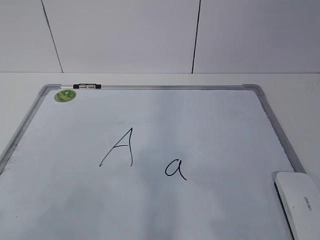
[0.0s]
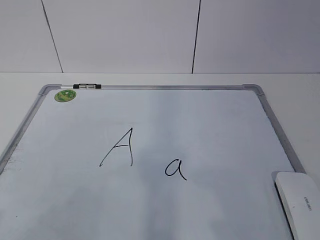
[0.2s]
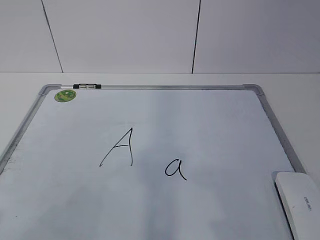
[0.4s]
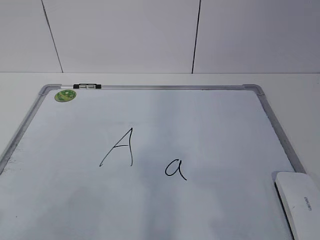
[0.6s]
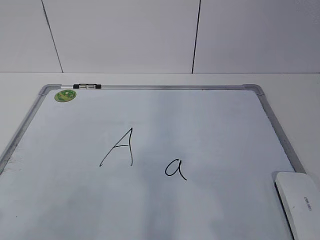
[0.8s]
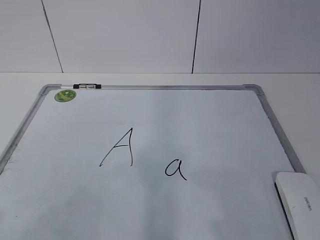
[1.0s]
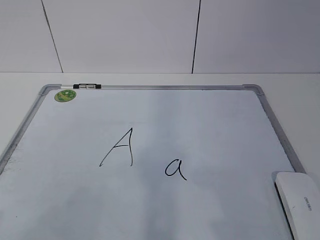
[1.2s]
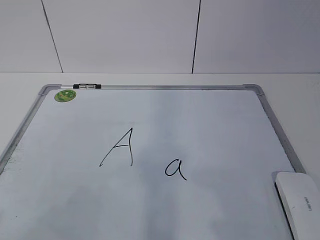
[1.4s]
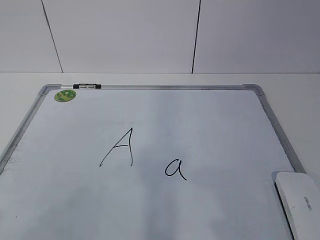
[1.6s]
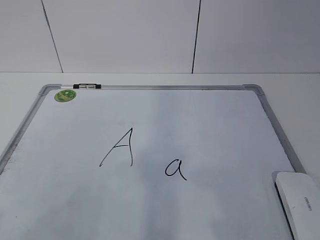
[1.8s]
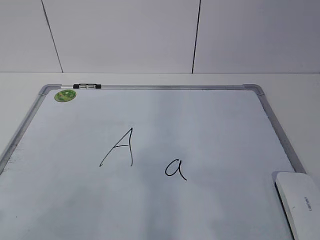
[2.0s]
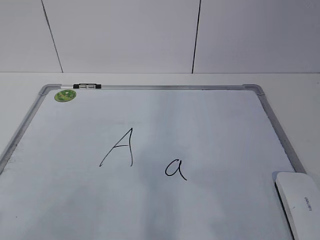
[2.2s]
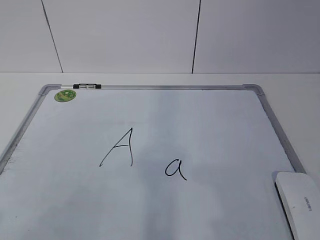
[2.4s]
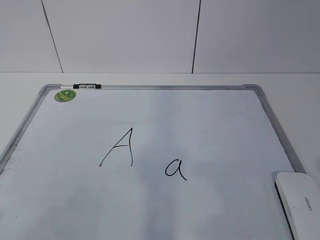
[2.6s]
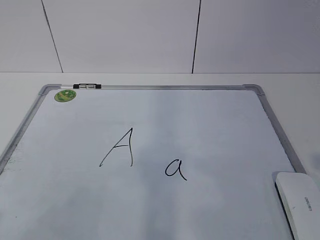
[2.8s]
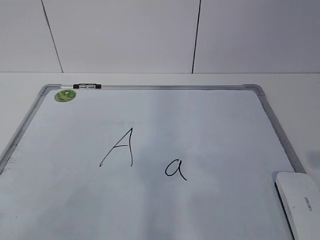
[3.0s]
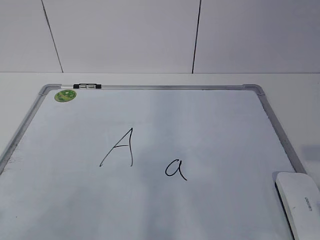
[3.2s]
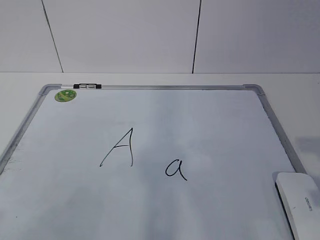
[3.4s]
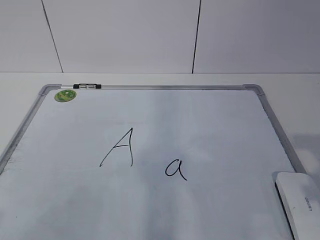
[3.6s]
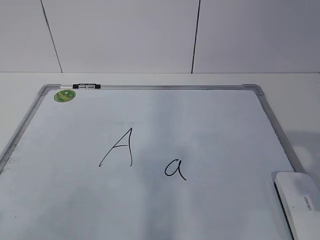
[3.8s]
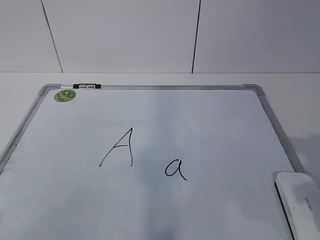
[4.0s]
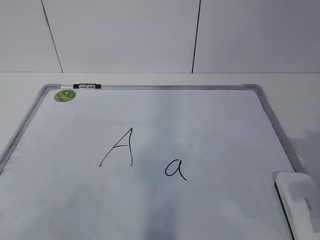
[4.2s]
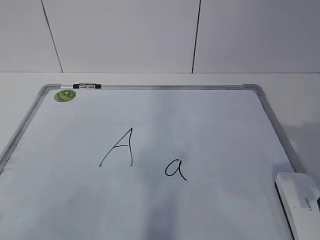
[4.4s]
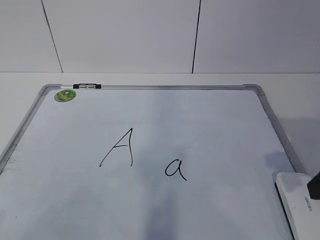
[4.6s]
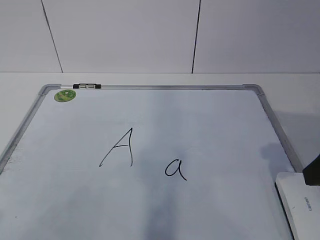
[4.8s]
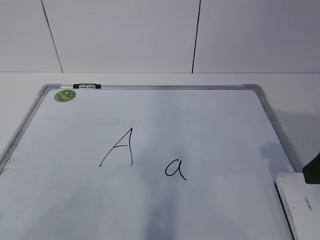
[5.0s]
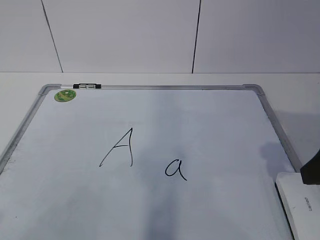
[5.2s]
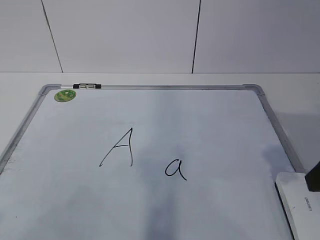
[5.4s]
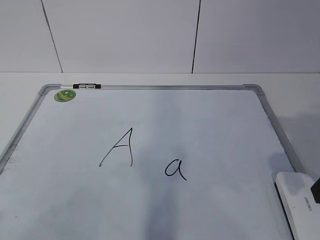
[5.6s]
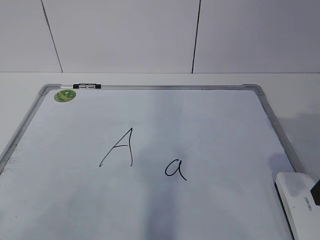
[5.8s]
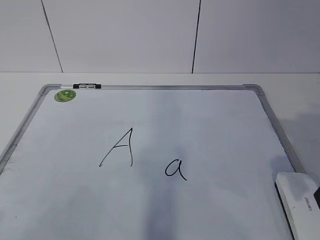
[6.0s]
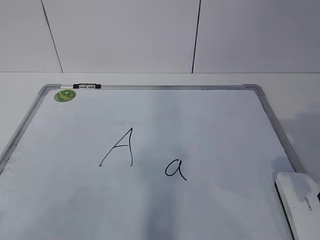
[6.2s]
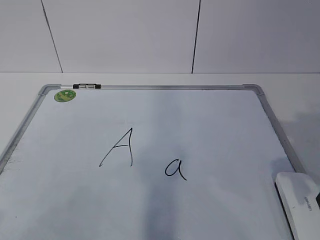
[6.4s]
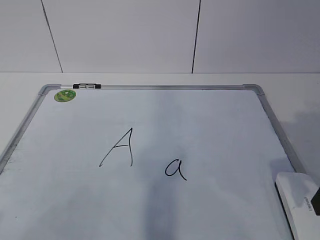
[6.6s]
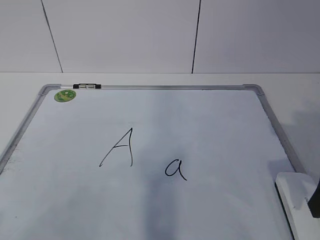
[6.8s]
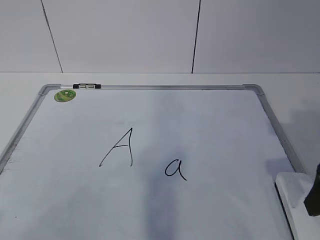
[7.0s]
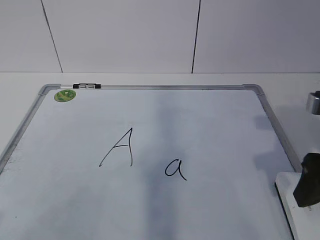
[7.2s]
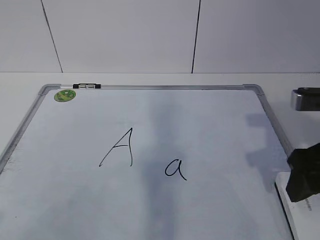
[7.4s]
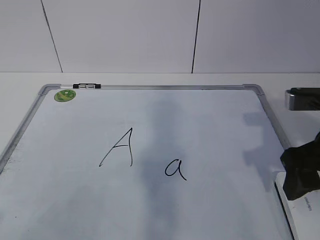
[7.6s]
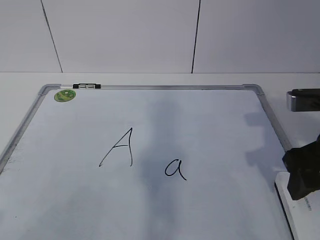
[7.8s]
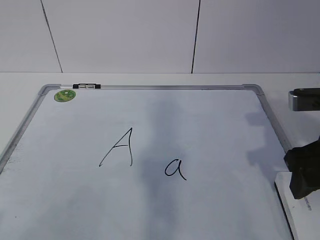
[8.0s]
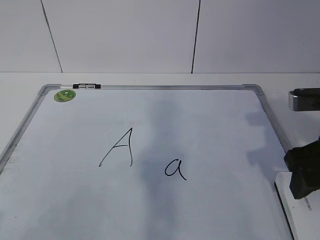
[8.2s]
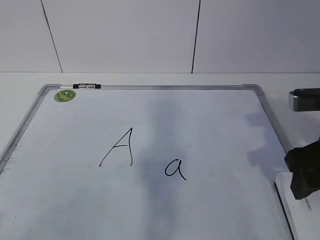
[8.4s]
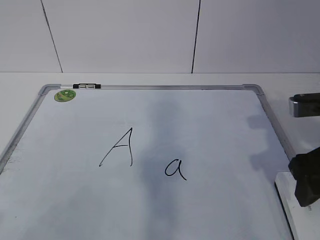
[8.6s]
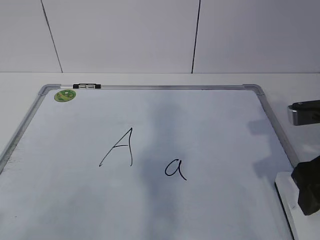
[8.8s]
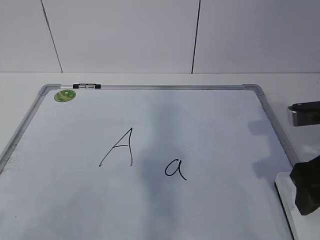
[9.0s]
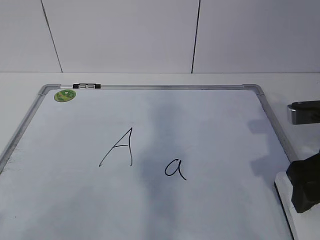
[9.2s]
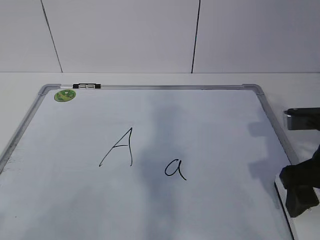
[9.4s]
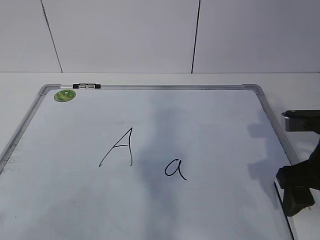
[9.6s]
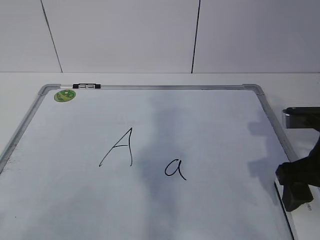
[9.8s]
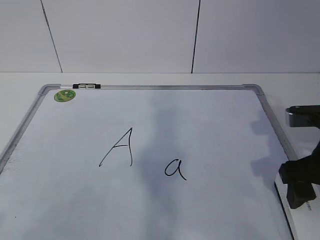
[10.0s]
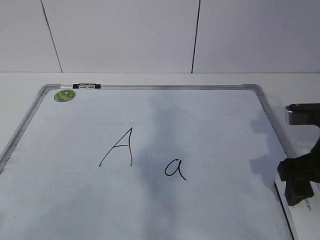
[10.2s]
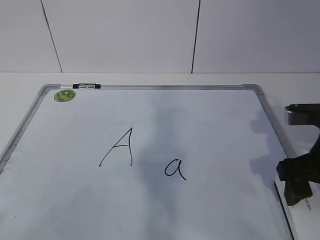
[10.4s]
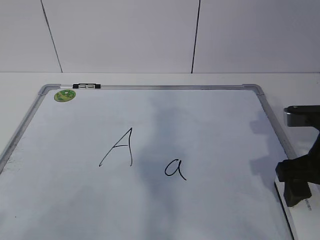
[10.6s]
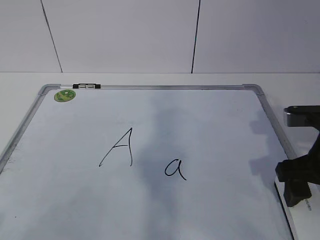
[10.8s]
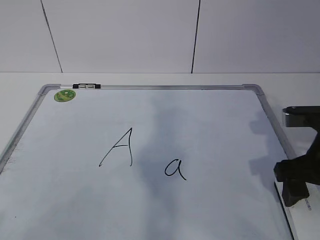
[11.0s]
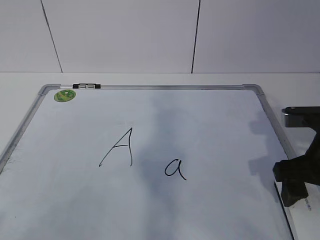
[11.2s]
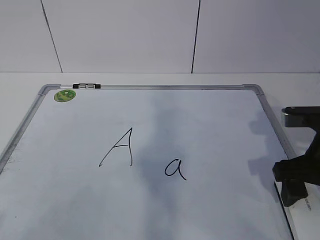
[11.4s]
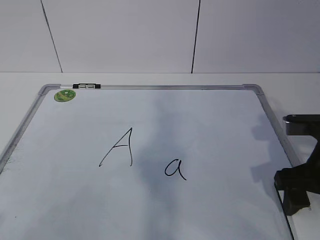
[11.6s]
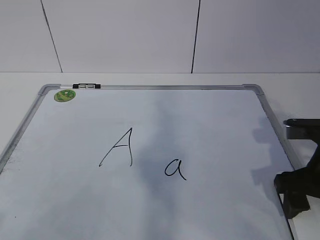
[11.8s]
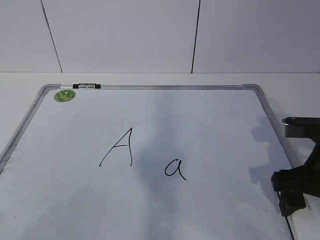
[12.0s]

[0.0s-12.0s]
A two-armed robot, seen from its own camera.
Task of the whole recording: pick up the eraser on the blackboard and erase the letter "a".
Step, 0.0s to 10.4s: Grab the eraser with your right hand.
3.0s to 4.4s: The right gripper is displaced forward by approximately 10 cm.
6.0s to 7.6s: The right gripper changes place by some 5 cm, and closes up.
7.6s to 9.0s: The right gripper opens its fingers.
9.0s to 12.0s: The grippers stay close to where they were, moving slightly.

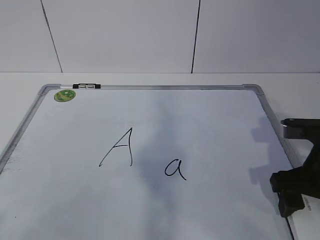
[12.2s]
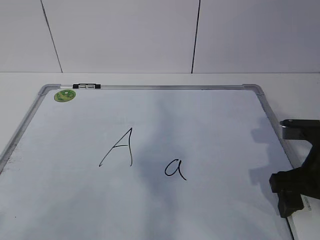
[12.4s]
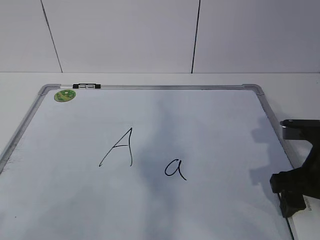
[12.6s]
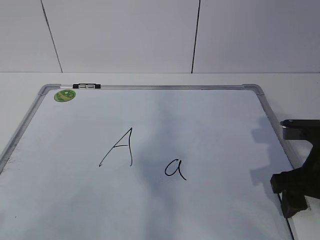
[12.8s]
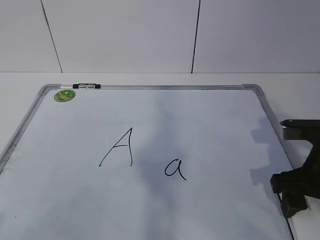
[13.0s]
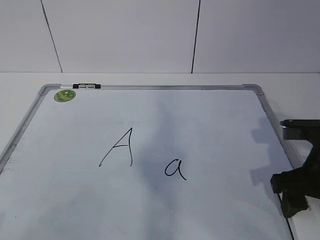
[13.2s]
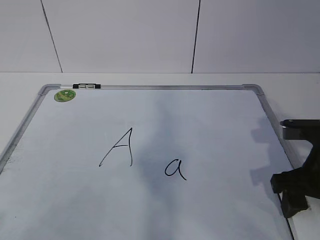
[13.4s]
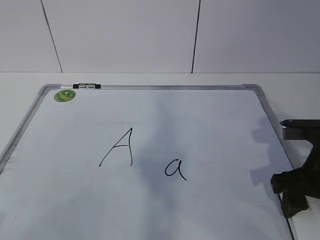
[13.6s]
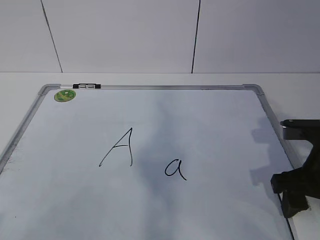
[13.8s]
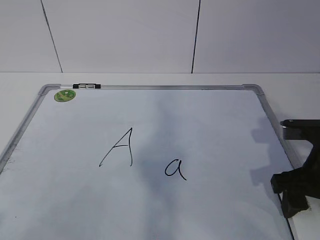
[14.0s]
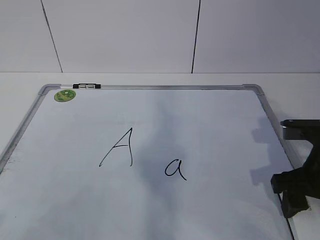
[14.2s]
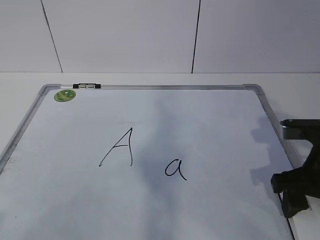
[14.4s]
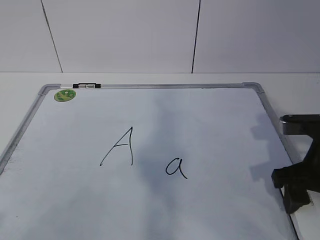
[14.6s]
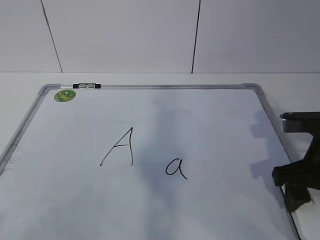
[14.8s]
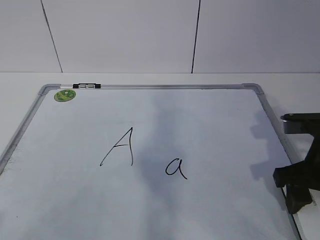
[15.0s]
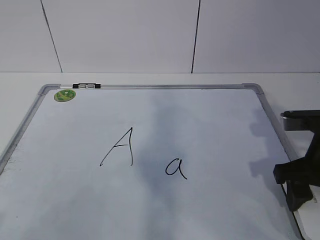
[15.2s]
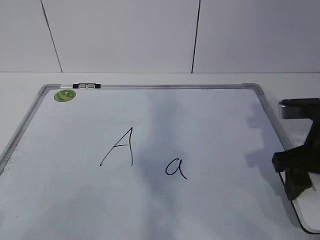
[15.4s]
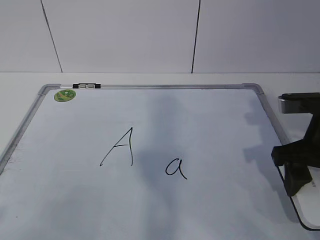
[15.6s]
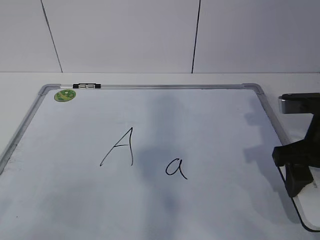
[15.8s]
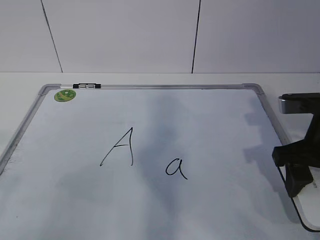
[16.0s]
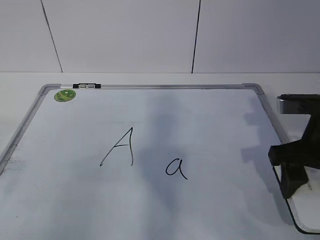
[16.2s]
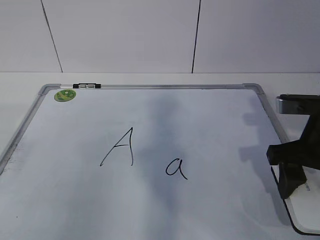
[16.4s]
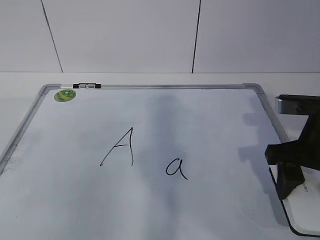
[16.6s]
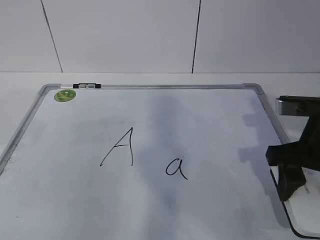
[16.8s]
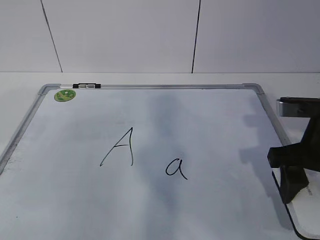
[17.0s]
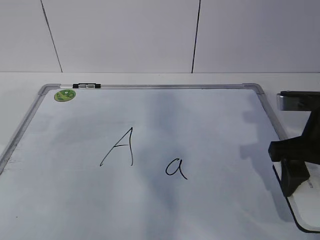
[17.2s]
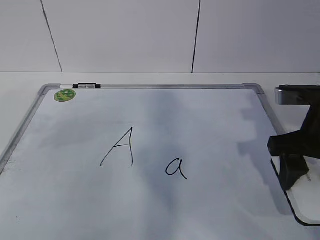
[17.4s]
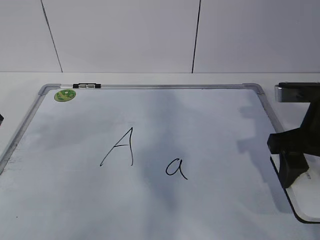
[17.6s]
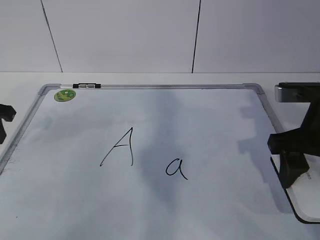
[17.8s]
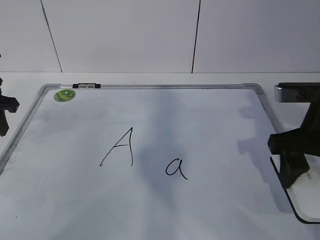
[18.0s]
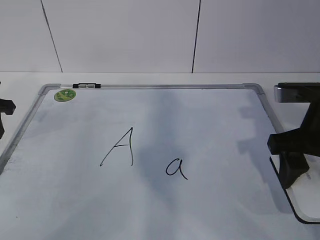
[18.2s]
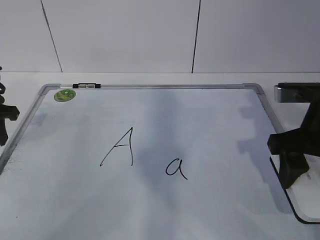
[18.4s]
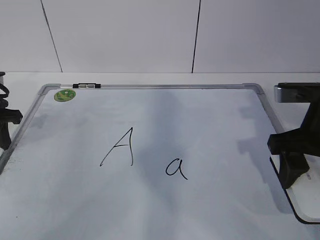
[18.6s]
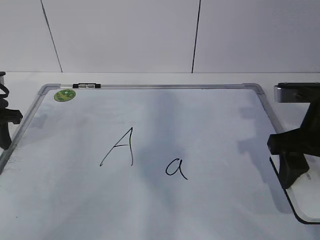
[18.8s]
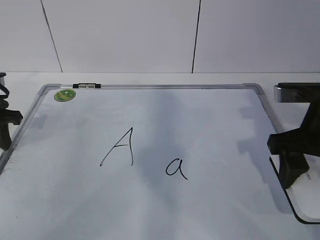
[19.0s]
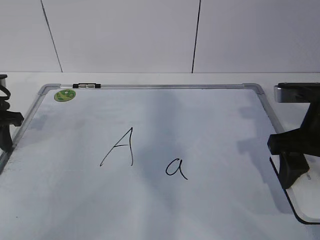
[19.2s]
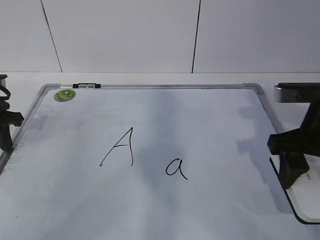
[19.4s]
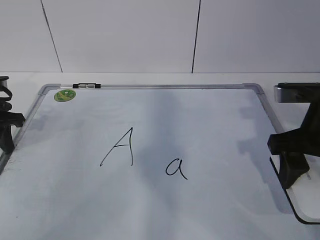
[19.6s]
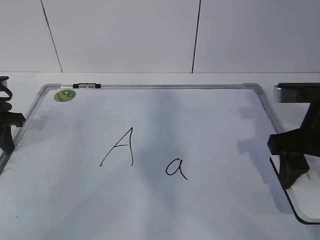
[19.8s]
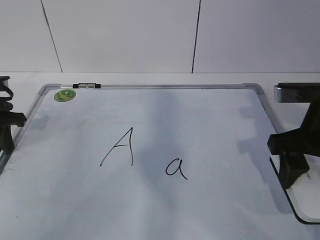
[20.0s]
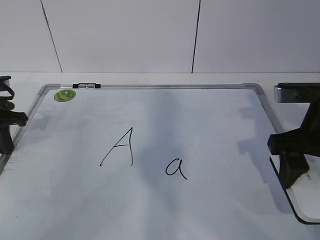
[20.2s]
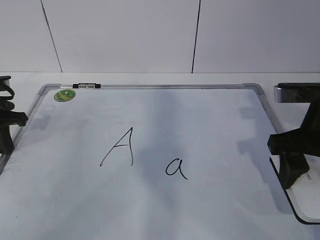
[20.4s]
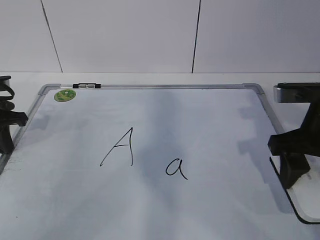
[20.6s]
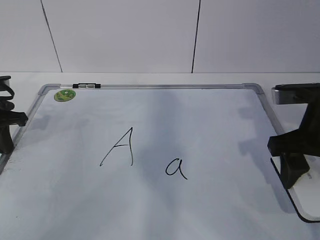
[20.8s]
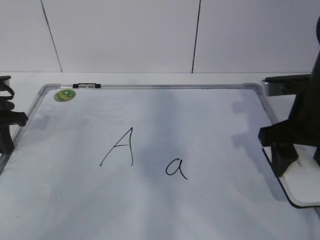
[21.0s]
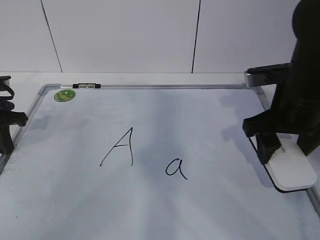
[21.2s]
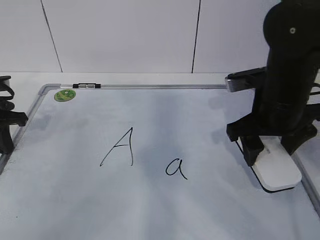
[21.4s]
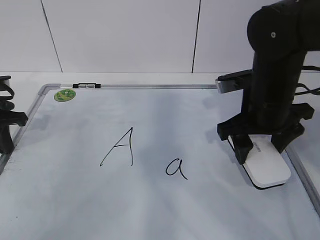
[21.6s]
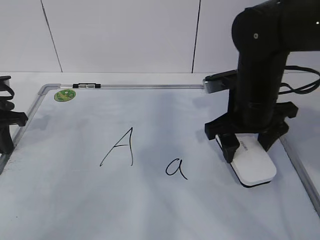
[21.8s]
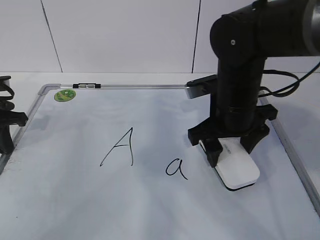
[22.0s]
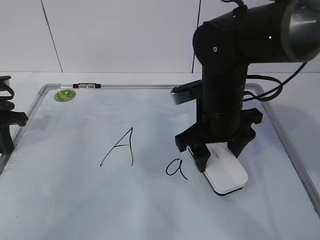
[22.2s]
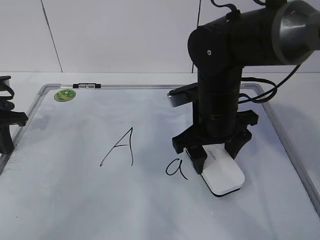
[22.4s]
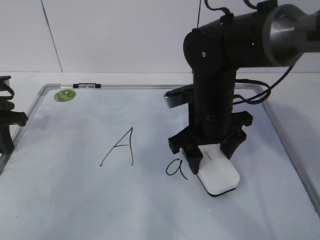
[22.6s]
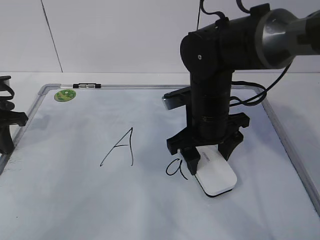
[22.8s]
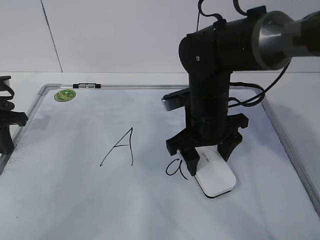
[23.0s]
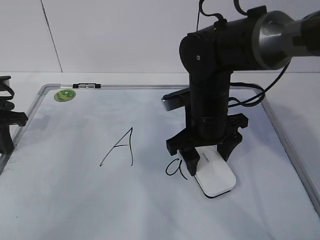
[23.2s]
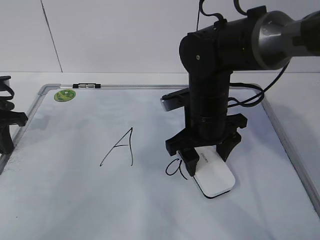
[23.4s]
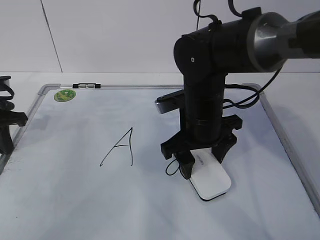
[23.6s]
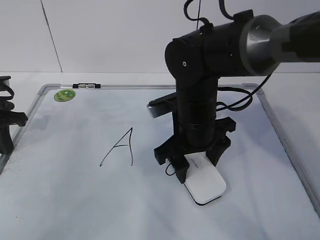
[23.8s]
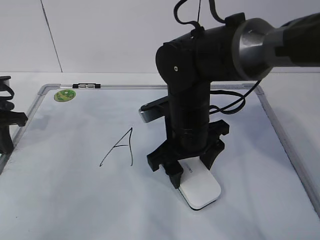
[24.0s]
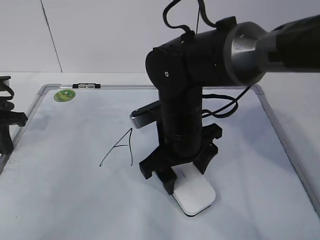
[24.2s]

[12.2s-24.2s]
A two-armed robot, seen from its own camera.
Task of the whole recording: pick up the eraser on the blackboard and erase the letter "a".
Step, 12.2s to 16.8s: Hold the drawing board steady with your left hand.
Step, 17.0s to 21.6s: Erase the letter a with your right hand.
13.8s to 15.2s: The grippers stay close to where they were, moving slightly.
16.6s to 18.2s: The left gripper is displaced forward and downward by approximately 25 cm.
18.2s to 19.8s: There are only small adjustments of the grippers.
21.2s to 22.6s: The right gripper is displaced to the left by some 10 cm.
22.6s to 24.2s: The right gripper changes place by approximately 5 cm.
